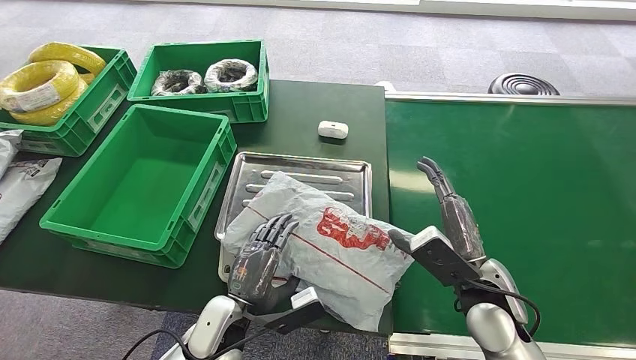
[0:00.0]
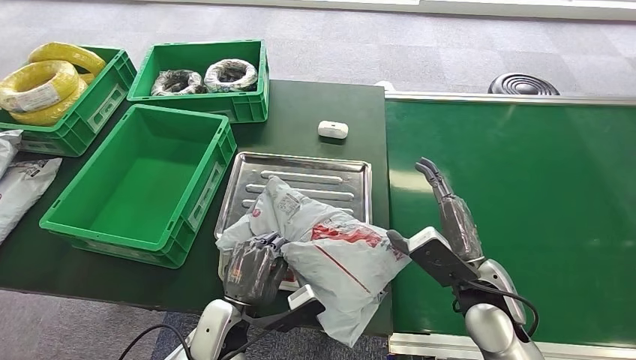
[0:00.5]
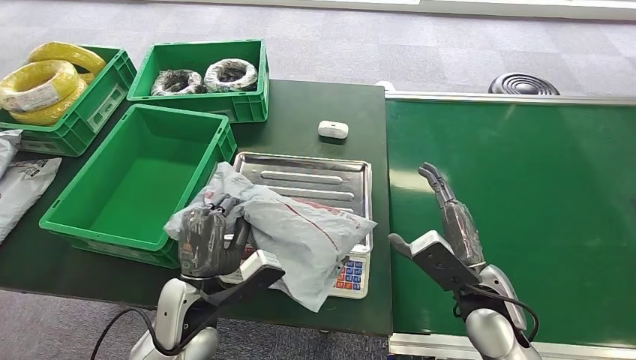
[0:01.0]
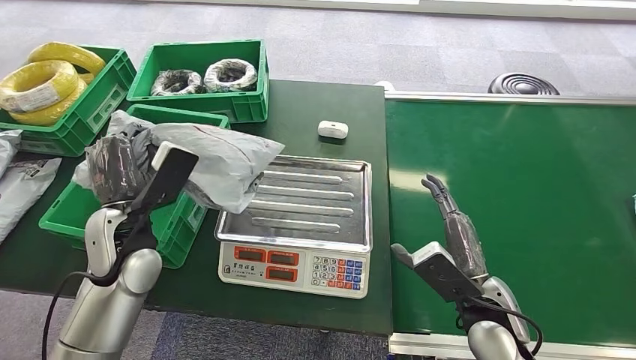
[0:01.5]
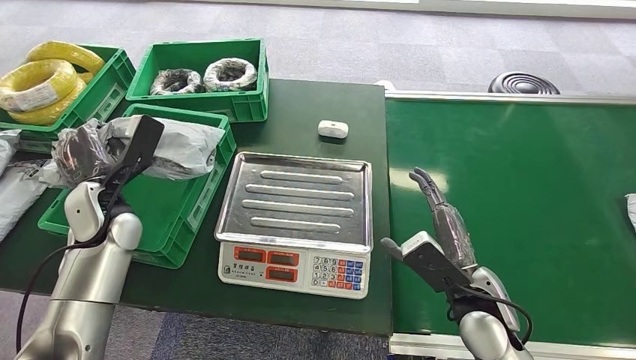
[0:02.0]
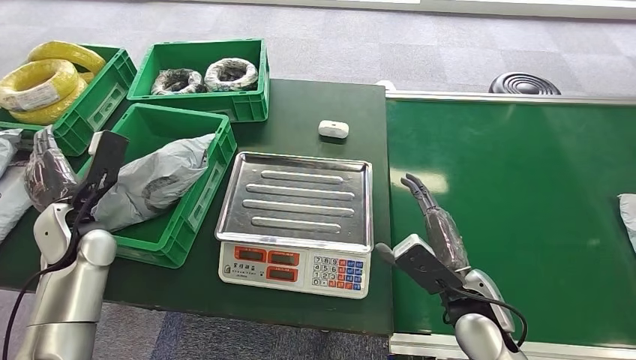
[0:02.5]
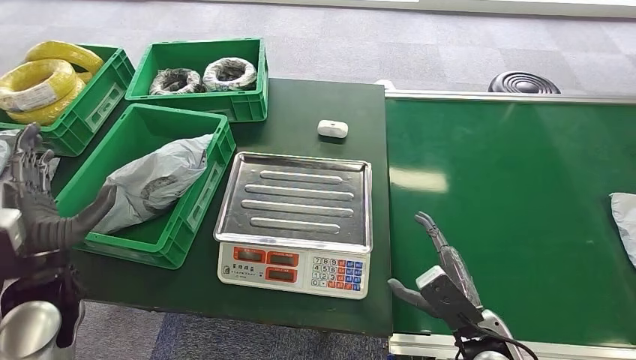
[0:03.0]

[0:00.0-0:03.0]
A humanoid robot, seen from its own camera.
Step, 0:02.0 to 0:03.0: Place the package into the parcel locker.
